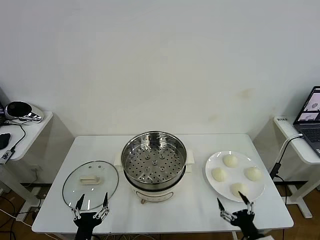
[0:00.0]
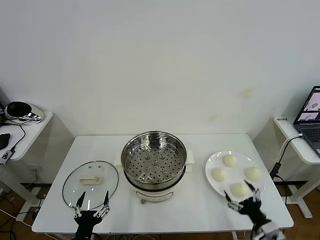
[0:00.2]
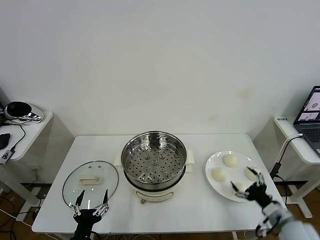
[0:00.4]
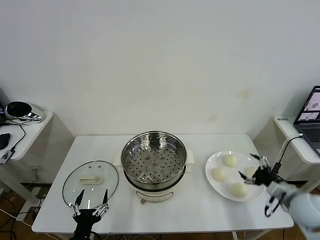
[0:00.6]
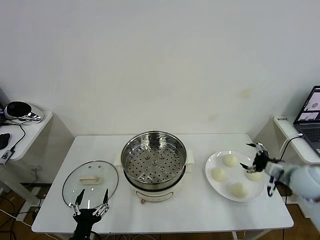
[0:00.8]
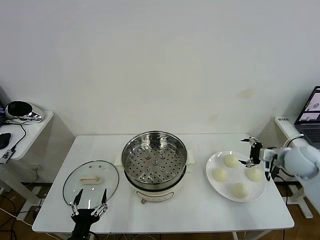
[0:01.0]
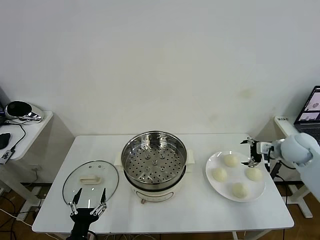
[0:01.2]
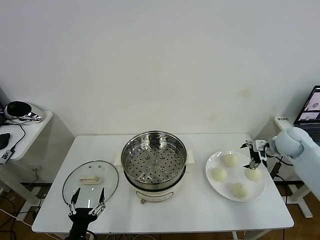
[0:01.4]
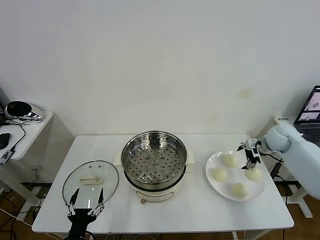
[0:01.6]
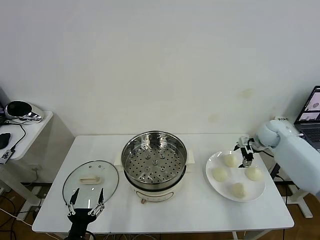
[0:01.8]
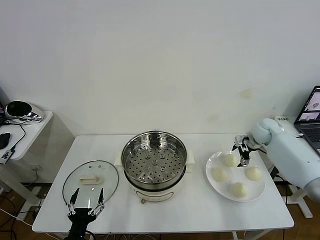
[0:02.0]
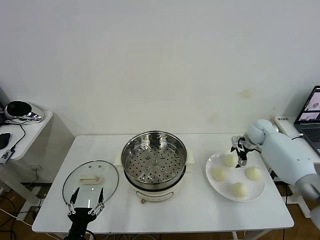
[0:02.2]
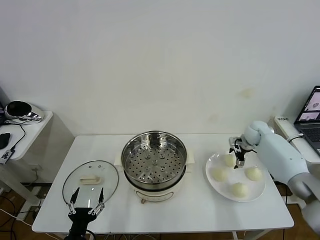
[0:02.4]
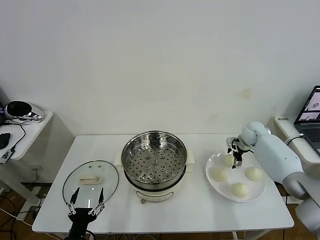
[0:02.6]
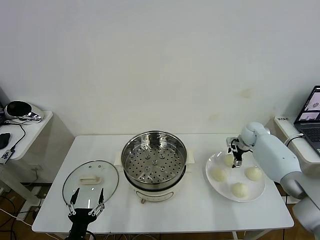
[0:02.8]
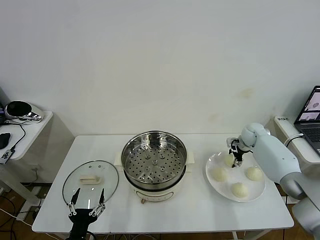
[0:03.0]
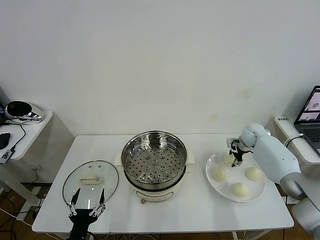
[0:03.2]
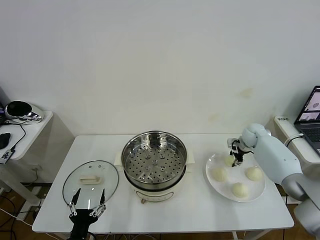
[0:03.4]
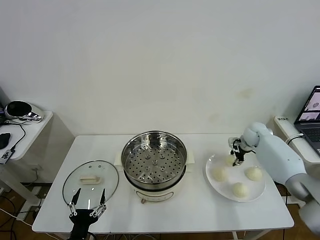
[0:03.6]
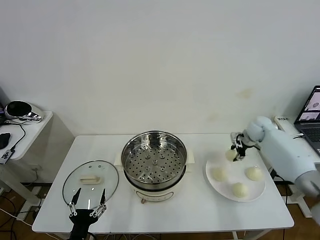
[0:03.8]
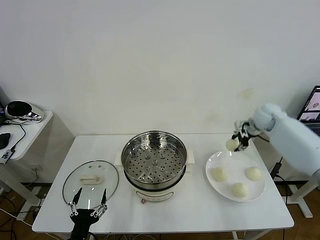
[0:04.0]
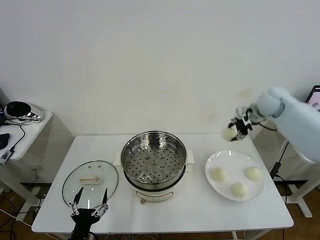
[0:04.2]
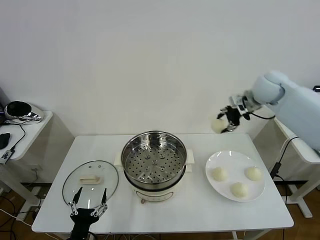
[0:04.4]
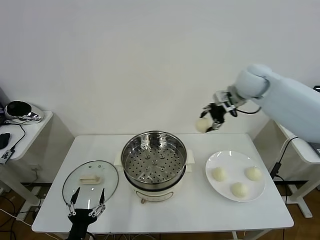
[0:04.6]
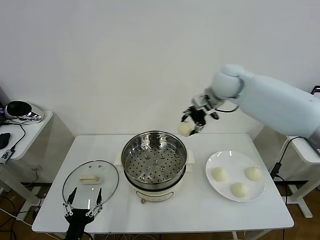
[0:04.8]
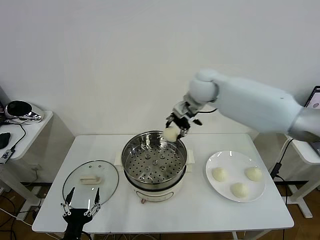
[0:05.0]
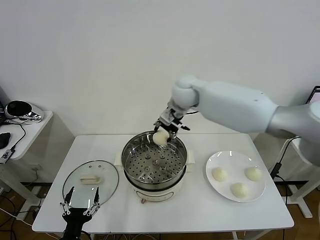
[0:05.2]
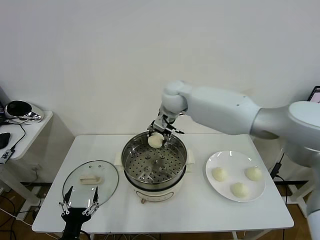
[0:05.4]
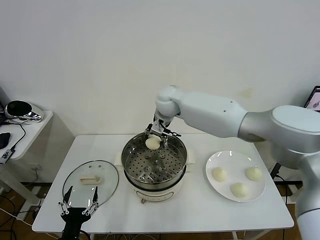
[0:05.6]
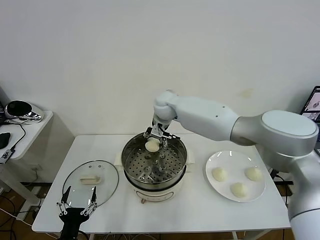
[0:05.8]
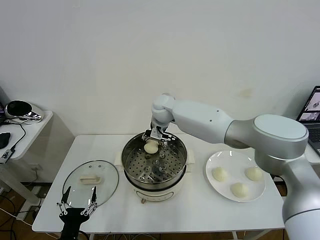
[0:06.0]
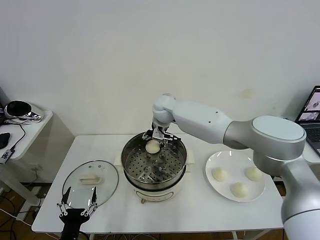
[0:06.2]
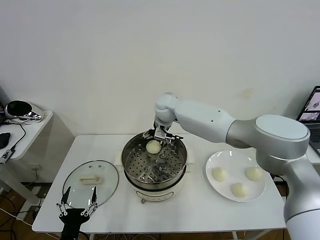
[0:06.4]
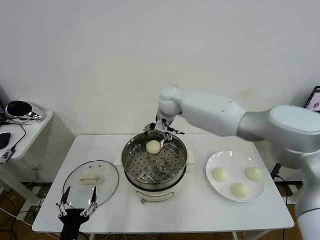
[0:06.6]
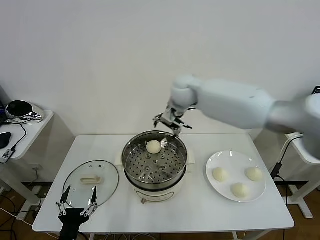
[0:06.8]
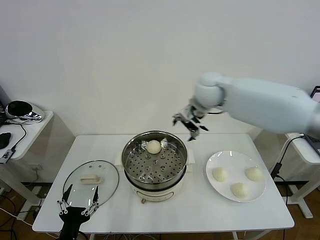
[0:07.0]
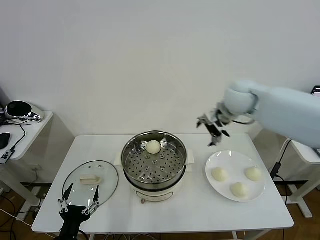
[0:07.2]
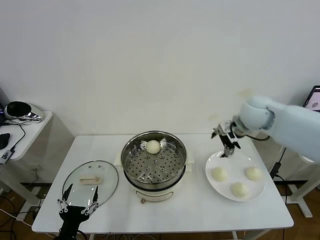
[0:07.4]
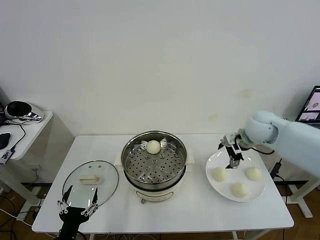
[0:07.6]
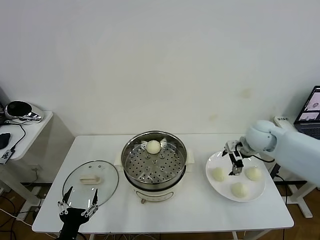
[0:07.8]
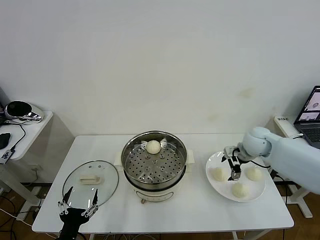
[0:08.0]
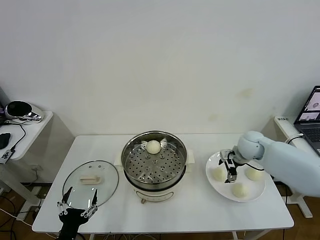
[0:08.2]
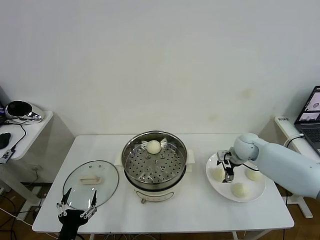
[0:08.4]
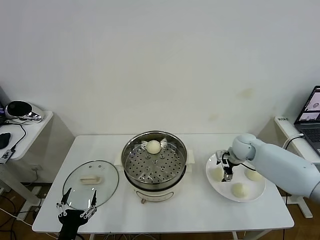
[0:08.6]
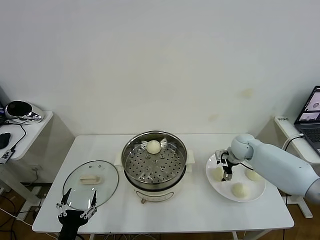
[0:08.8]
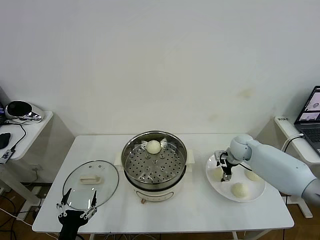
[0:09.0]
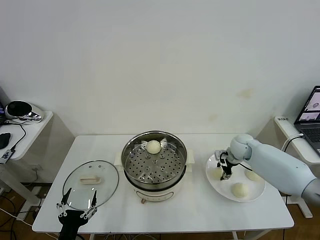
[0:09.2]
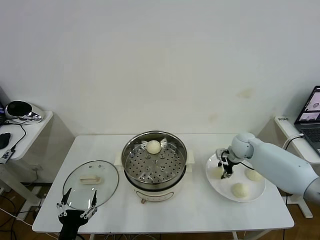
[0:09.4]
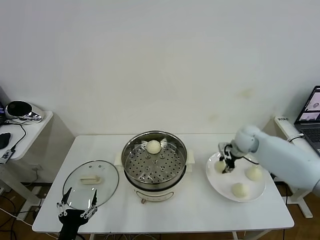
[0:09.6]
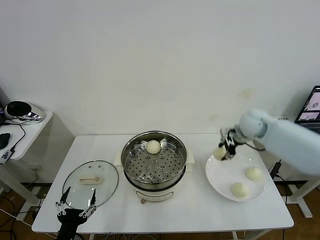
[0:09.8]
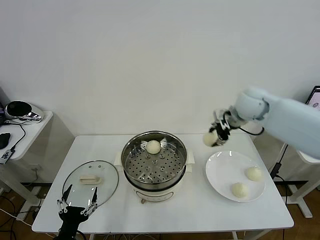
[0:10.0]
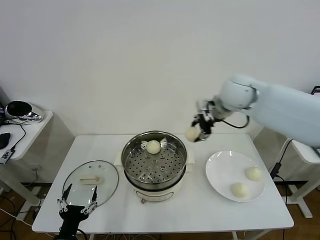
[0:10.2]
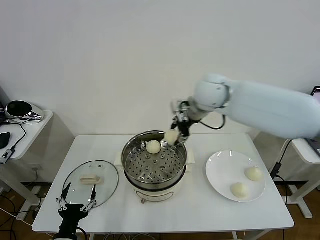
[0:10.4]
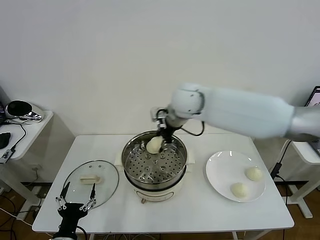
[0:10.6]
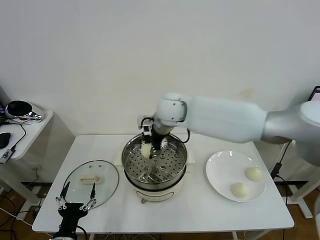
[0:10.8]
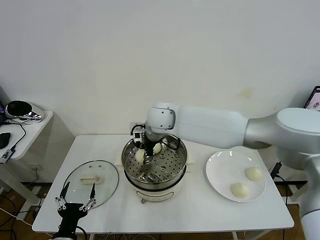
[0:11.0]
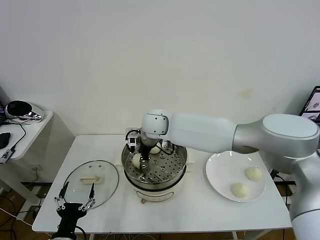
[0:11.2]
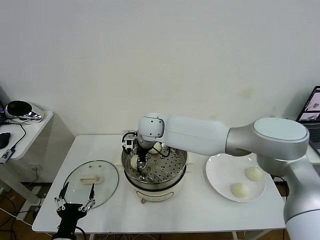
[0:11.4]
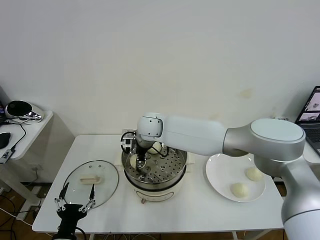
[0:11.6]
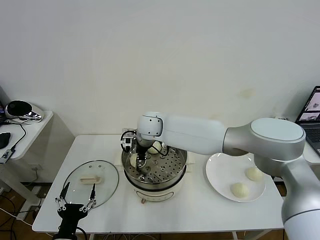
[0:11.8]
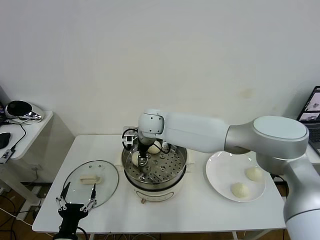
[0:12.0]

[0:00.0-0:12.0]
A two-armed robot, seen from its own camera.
Task of the whole recording: take steamed baozi put them in steamer then cover it.
Step, 0:00.0 to 0:03.2: Grasp the baozi in the plate with right gripper.
Step, 0:03.4 to 0:06.4: Place the baozi on the steamer with right gripper.
Step, 0:06.6 to 0:09.2: Grasp the baozi in the plate with right gripper.
0:01.6 to 0:03.0: The right gripper travels downward and forward by about 10 cm, and closes.
0:03.0 to 0:04.4: The right gripper goes approximately 25 cm upward.
0:04.4 to 0:06.0: The right gripper heads to the left and downward, covering roughly 30 cm.
0:06.0 to 0:07.6: The right gripper travels to the right by roughly 30 cm, and opens.
0:07.6 to 0:09.0: The right gripper moves downward, approximately 10 cm, and closes.
0:09.0 to 0:10.4: The right gripper goes about 35 cm upward and to the left, and closes up.
0:10.4 to 0:12.0: The right gripper goes about 15 cm to the left and downward, and opens its fingers.

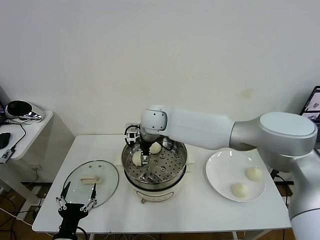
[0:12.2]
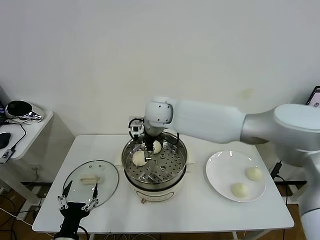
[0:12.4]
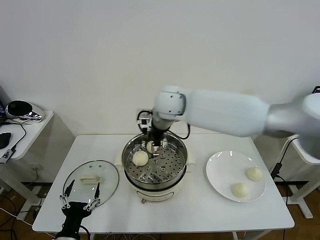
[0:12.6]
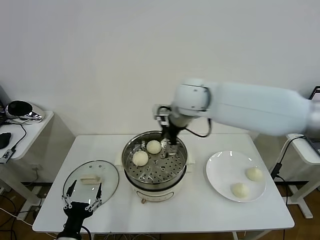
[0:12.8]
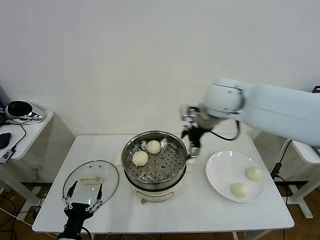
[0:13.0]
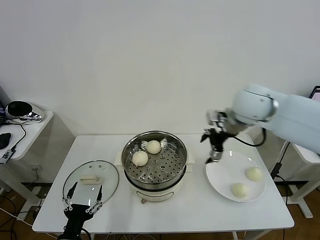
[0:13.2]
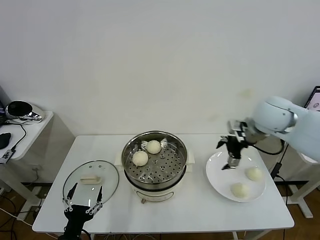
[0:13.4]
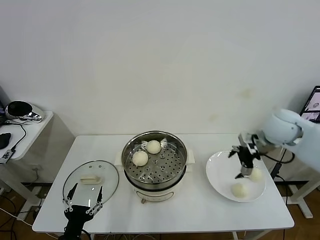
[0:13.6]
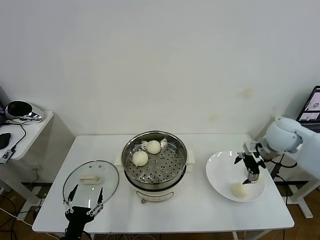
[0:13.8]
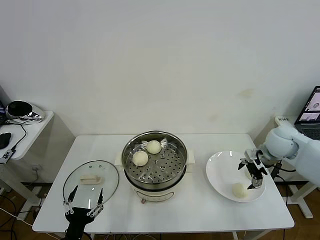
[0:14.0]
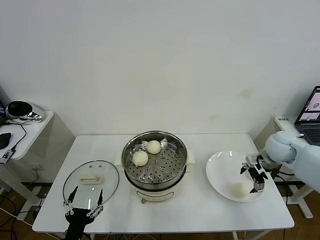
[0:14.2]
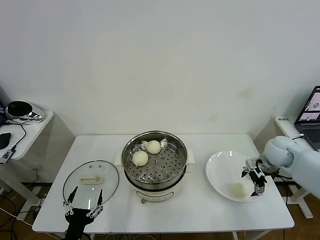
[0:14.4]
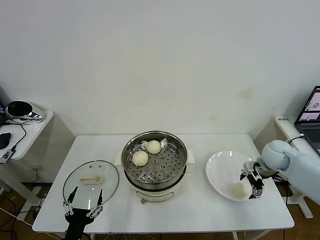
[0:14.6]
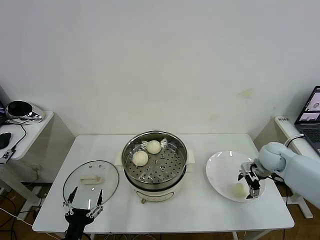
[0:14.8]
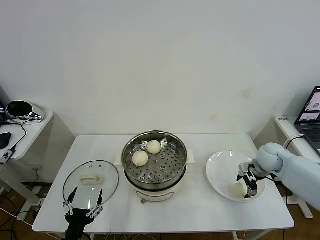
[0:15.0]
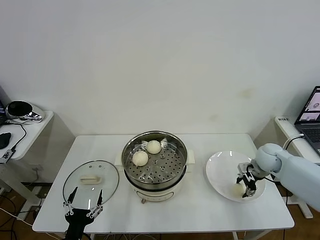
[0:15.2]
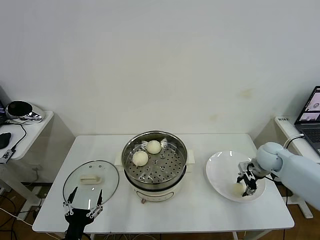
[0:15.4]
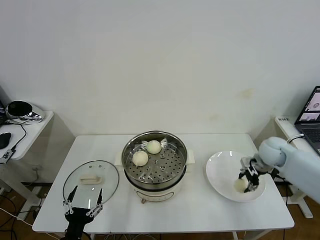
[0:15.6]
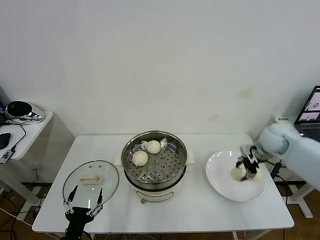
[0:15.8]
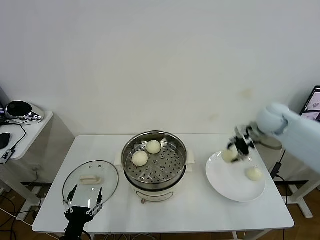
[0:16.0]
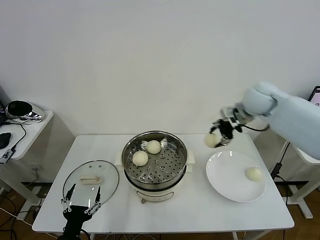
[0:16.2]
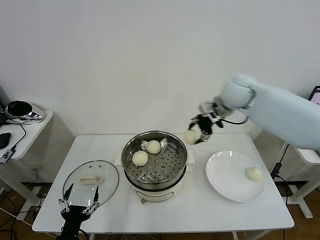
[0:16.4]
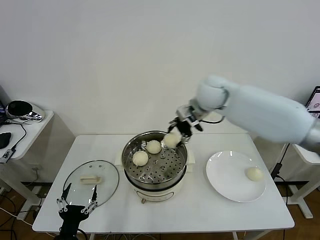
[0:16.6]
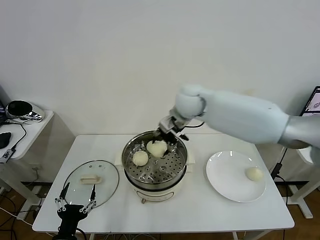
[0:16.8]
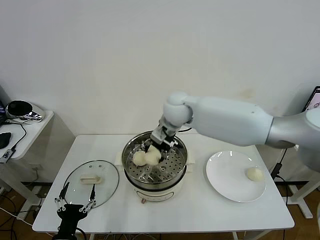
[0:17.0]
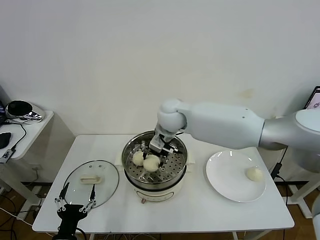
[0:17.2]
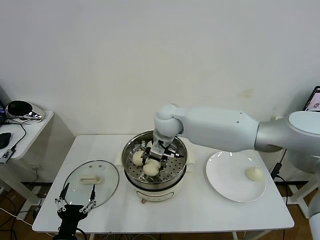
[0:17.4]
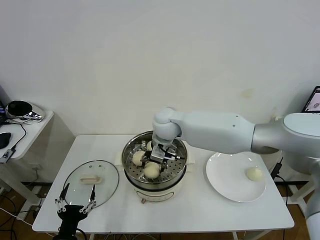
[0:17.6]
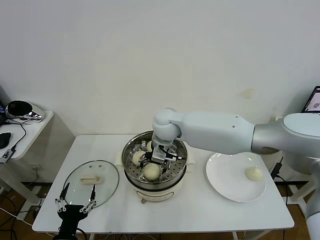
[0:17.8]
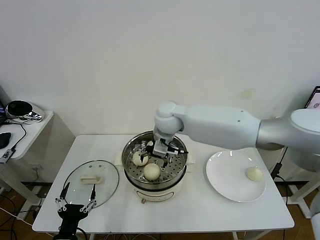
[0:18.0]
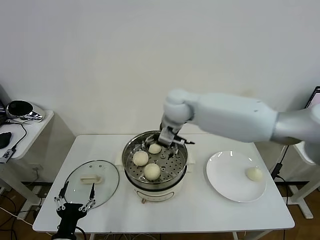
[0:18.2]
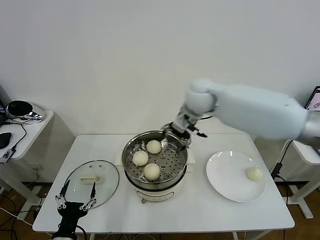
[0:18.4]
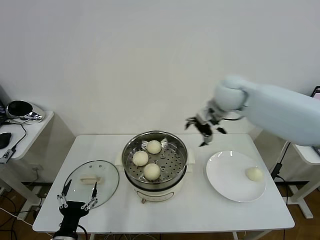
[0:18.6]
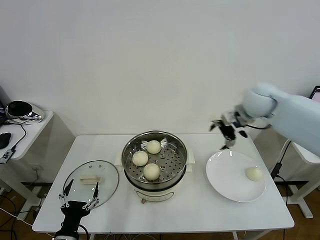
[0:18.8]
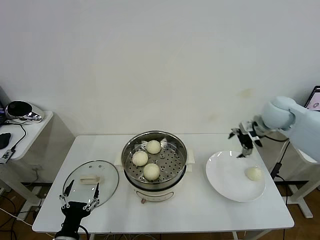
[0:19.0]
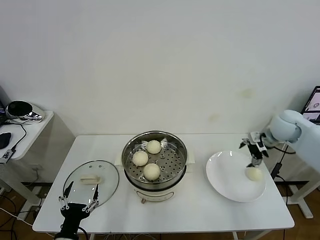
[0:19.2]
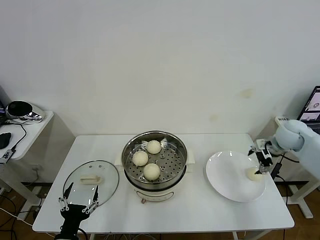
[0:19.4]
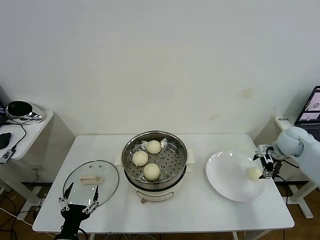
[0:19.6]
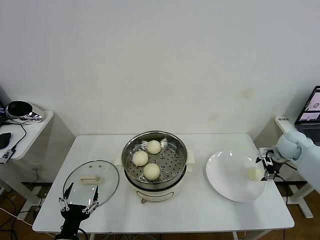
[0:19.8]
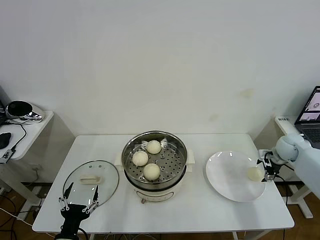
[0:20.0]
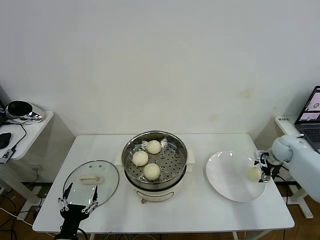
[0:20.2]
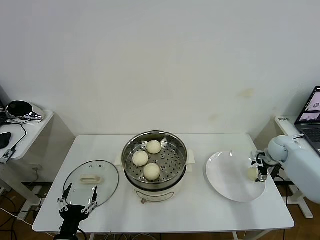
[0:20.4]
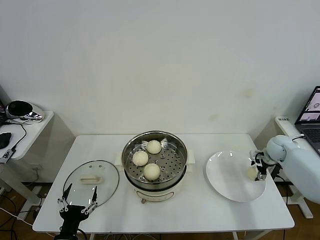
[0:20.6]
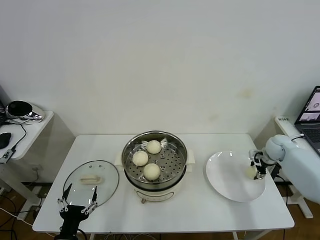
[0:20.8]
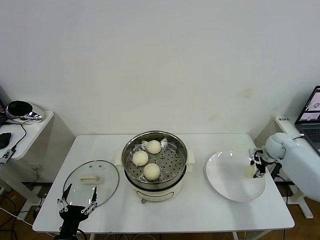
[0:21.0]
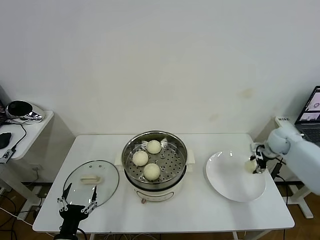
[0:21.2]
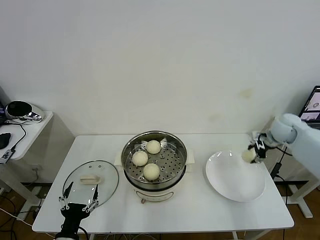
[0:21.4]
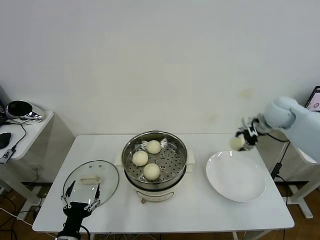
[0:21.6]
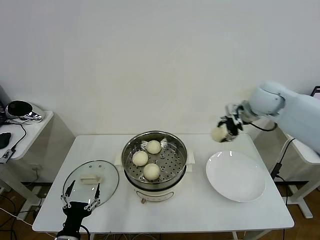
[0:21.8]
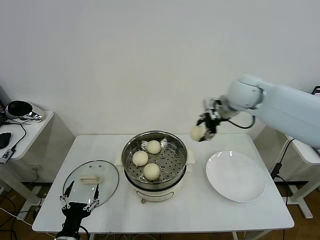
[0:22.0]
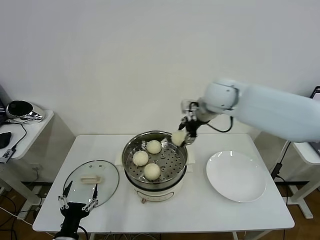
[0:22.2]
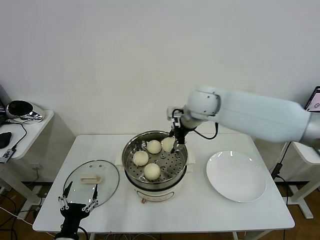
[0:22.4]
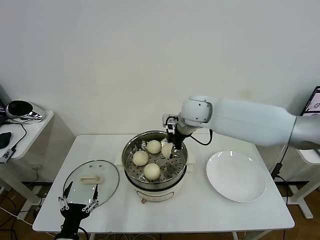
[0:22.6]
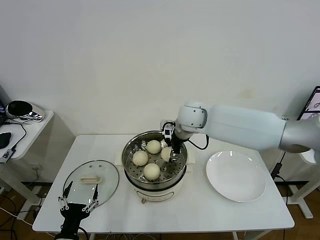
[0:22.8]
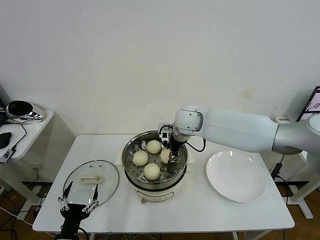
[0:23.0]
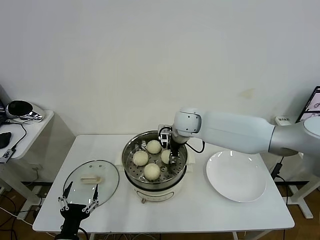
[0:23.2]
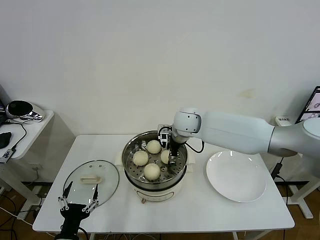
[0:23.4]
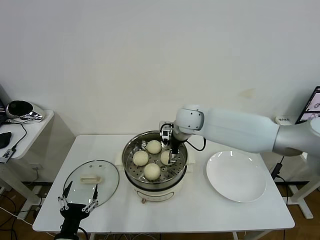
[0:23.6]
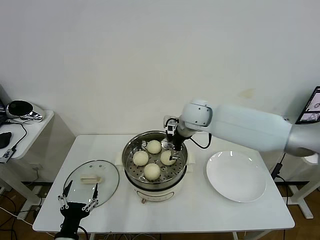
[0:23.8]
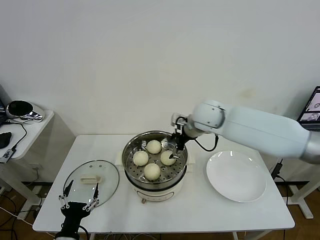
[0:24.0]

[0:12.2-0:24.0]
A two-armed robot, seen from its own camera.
Task of the whole recording: take steamed baozi put them in steamer then cover it.
Step, 0:12.4 to 0:15.4: Grasp the baozi in the plate with right gripper.
Step, 0:15.6 to 0:17.8: Place the baozi on the steamer with right gripper.
Step, 0:18.2 to 0:20.8: Grasp the baozi in the plate with right gripper.
Step, 0:21.0 to 0:23.6: Place the baozi on the steamer with right gripper.
0:12.2 to 0:13.6: The right gripper moves to the right, approximately 35 cm.
0:13.6 to 0:15.2: The right gripper is displaced downward by roughly 15 cm, and closes up.
0:15.2 to 0:16.6: The right gripper travels to the left and upward by roughly 35 cm.
0:16.6 to 0:18.2: The right gripper is displaced to the left by roughly 5 cm, and opens its fingers.
0:18.2 to 0:19.6: The right gripper is displaced to the right by some 40 cm.
0:19.6 to 0:21.0: The right gripper moves downward, about 5 cm, and closes its fingers.
0:21.0 to 0:22.6: The right gripper shifts roughly 40 cm to the left and upward.
0:22.6 to 0:24.0: The right gripper opens up.
